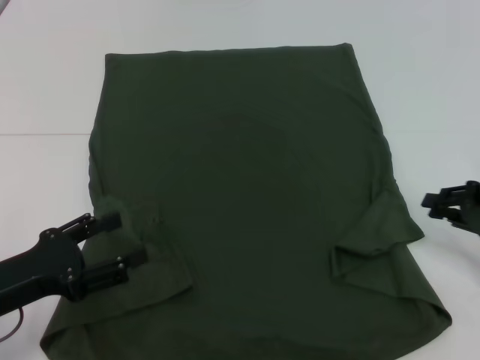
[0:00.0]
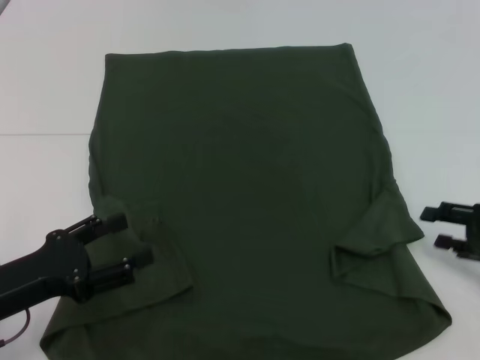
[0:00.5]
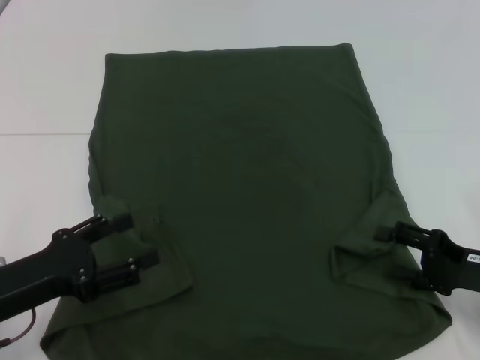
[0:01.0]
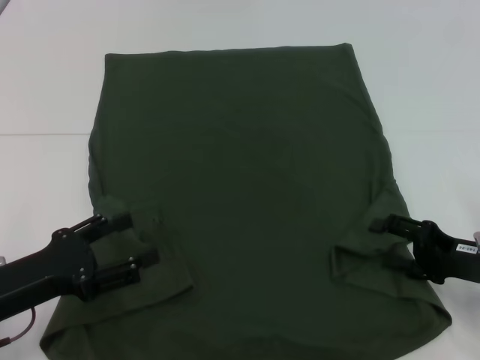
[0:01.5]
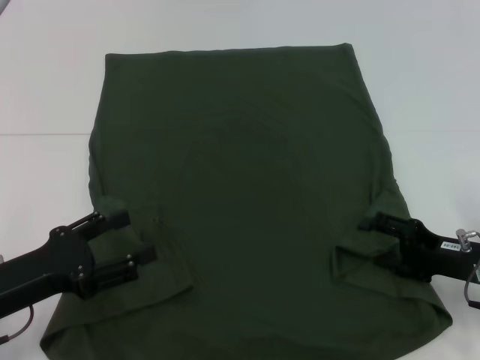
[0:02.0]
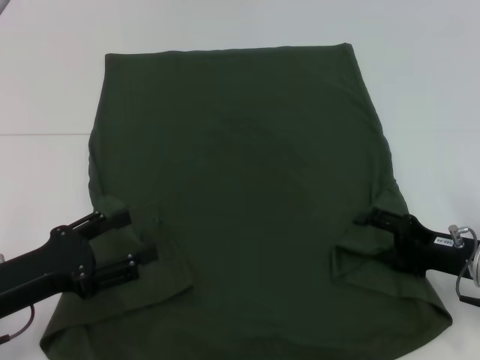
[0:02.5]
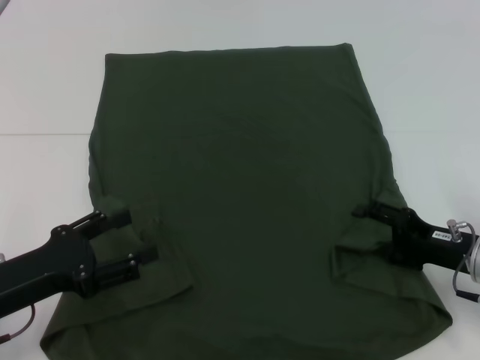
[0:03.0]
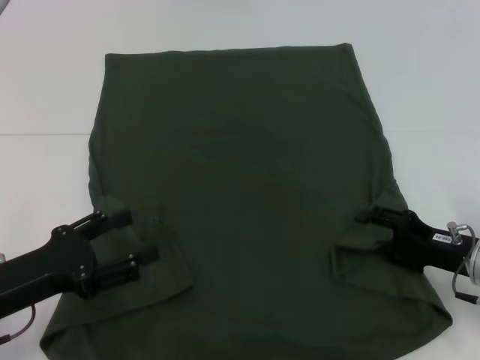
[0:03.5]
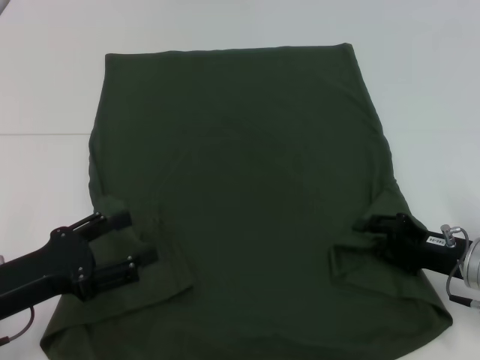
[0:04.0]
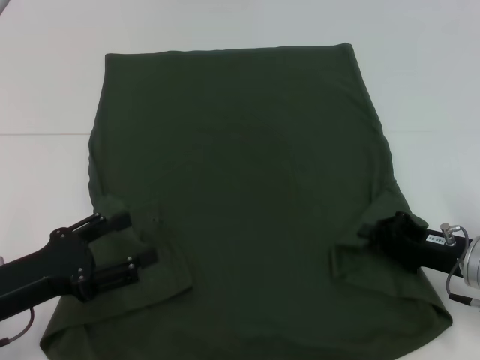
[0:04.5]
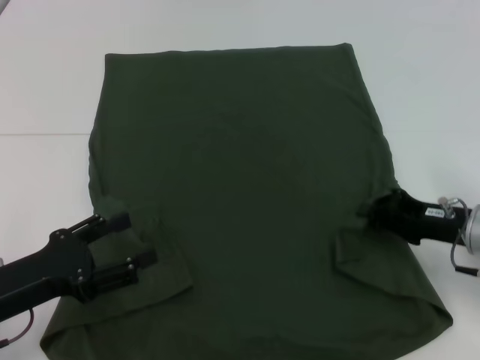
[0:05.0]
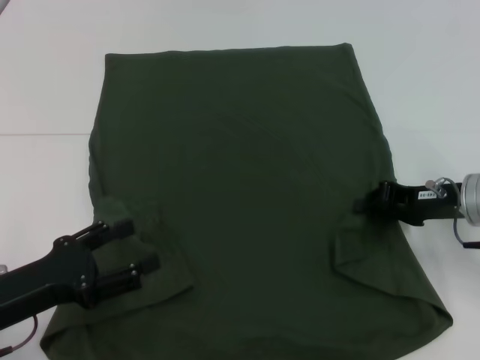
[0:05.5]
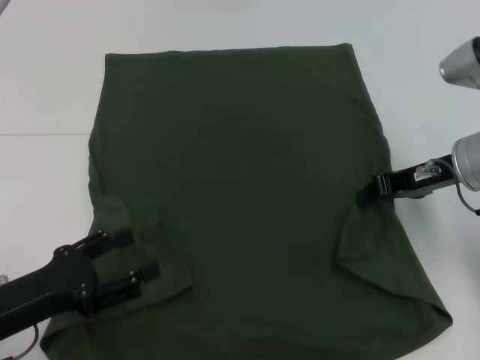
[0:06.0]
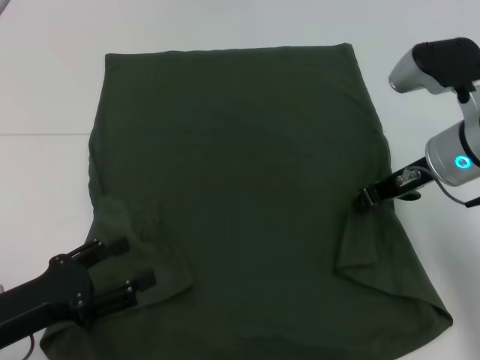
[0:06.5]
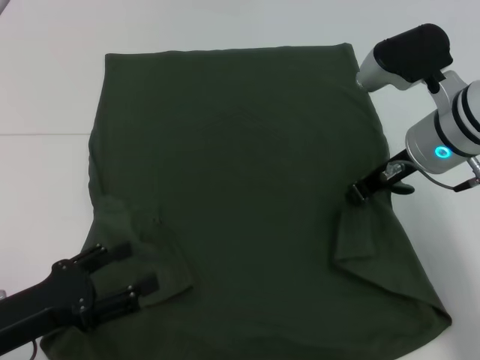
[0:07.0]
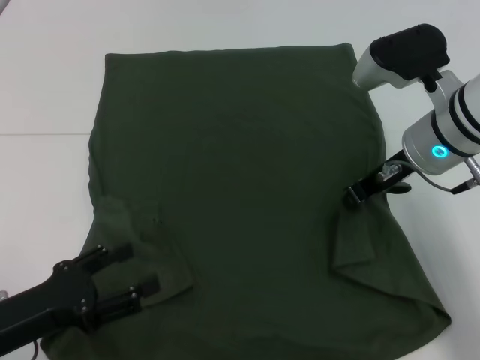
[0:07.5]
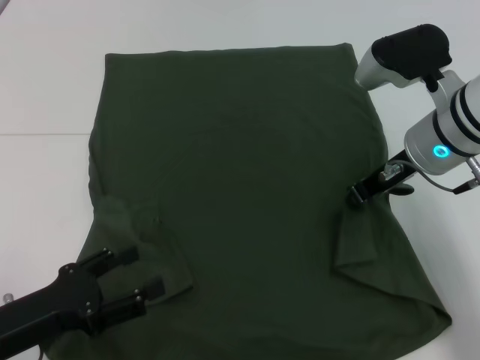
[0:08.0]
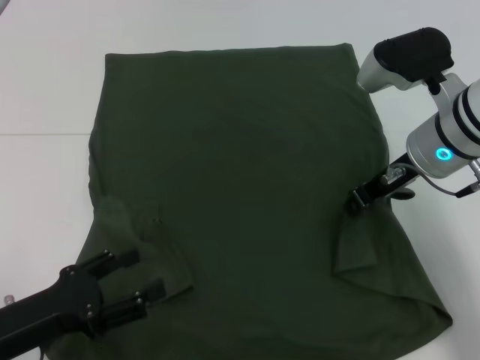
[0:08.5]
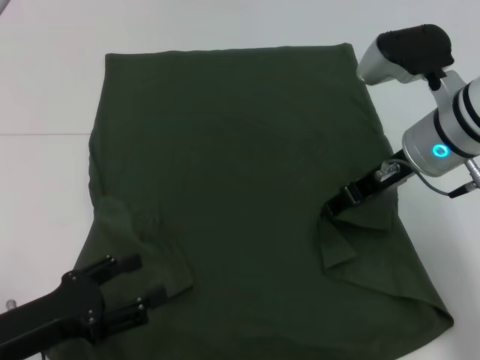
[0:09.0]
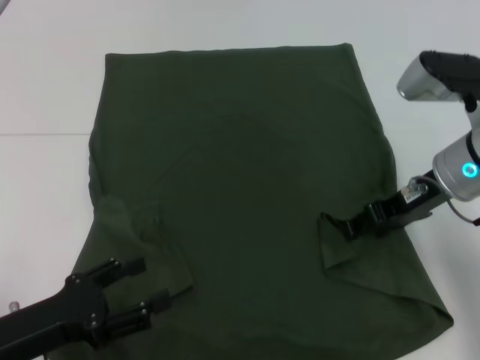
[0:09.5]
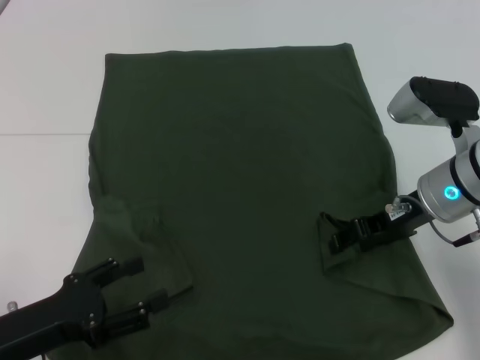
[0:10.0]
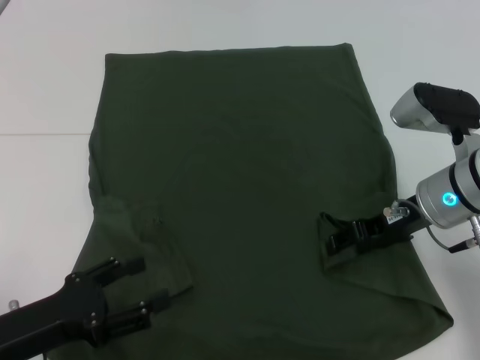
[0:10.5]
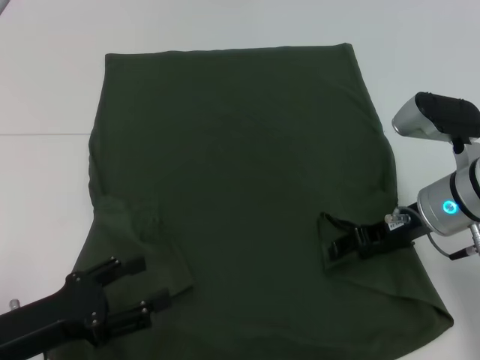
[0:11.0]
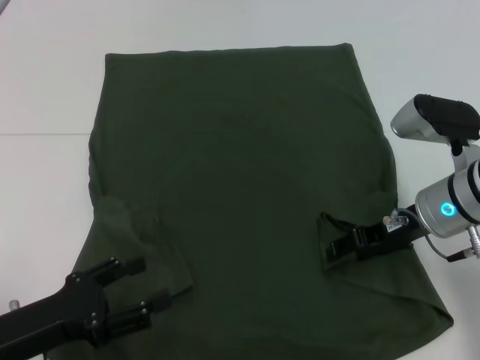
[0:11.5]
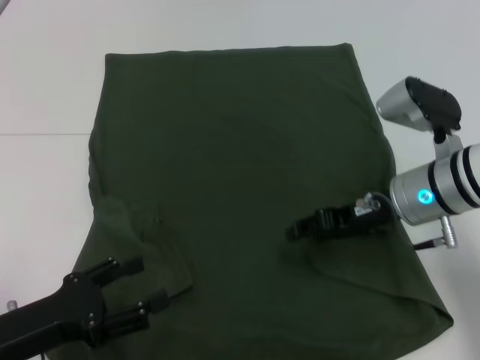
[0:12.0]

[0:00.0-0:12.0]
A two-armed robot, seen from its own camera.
Step, 0:00.0 to 0:12.0: Fold the bottom right sleeve with your right hand.
0:00.0 to 0:02.0: The right gripper heads to the left, covering about 5 cm, and opens its fingers.
0:02.0 to 0:04.0: The grippers stay close to where they were, moving slightly.
0:04.0 to 0:06.0: The right gripper travels upward and forward by some 15 cm, and closes up.
0:06.0 to 0:08.0: The right gripper shifts about 5 cm to the left.
0:08.0 to 0:10.0: The right gripper moves roughly 5 cm, and opens its fingers.
0:10.0 to 0:12.0: There are only small adjustments of the grippers.

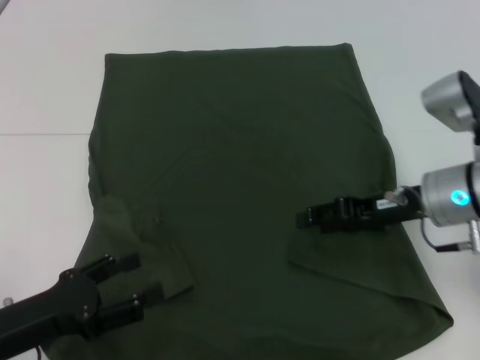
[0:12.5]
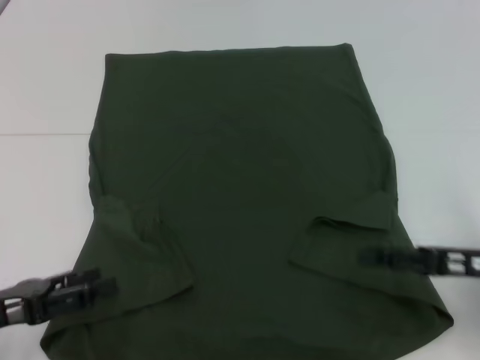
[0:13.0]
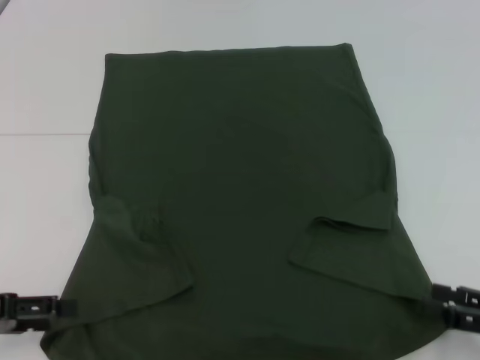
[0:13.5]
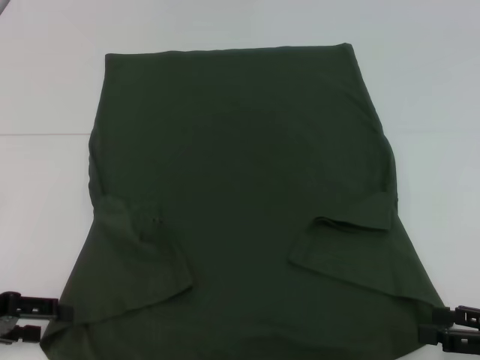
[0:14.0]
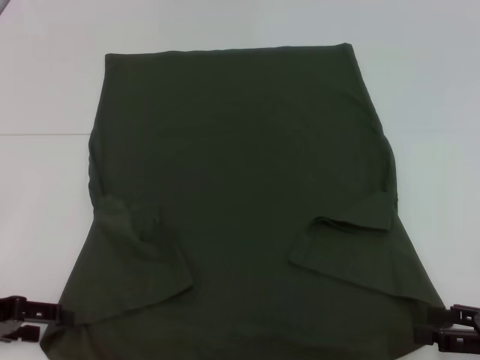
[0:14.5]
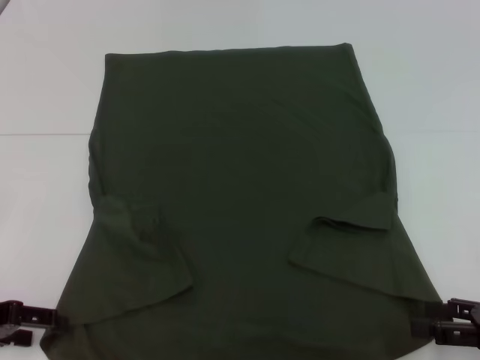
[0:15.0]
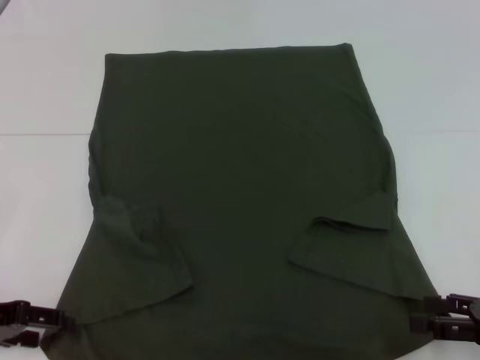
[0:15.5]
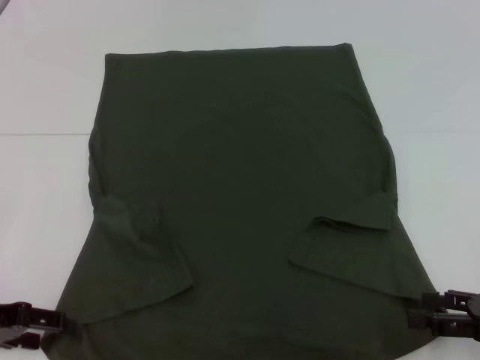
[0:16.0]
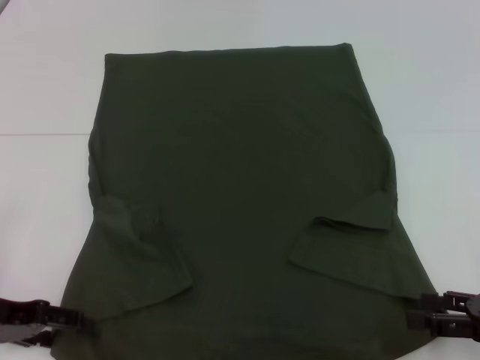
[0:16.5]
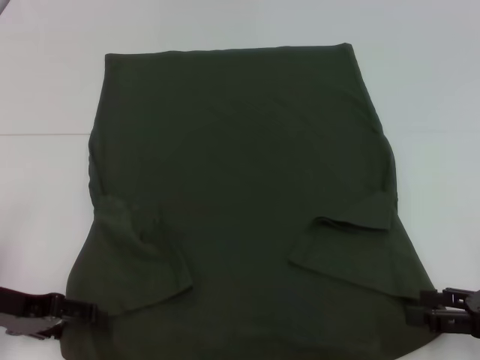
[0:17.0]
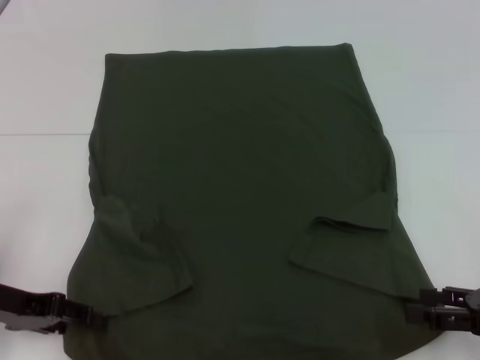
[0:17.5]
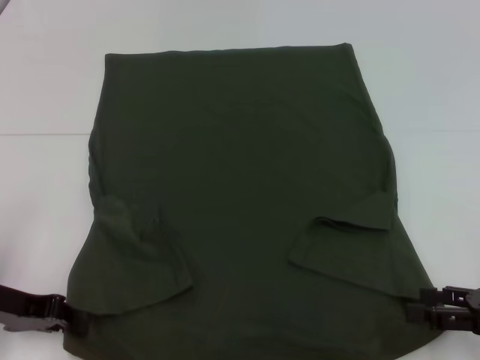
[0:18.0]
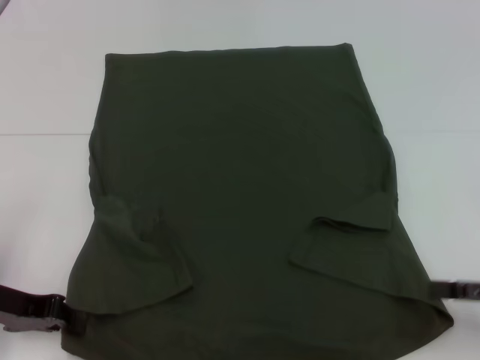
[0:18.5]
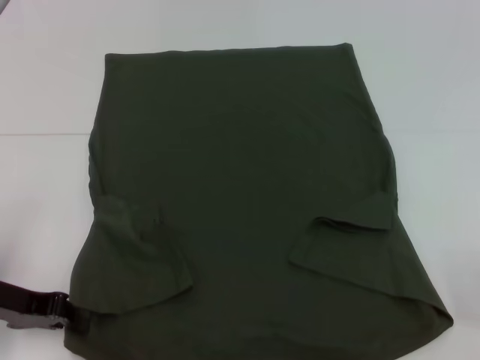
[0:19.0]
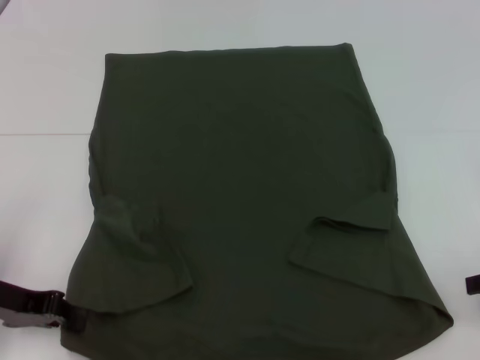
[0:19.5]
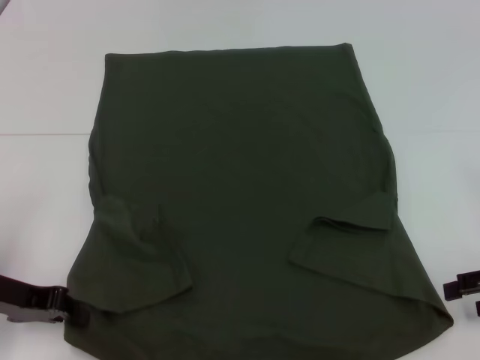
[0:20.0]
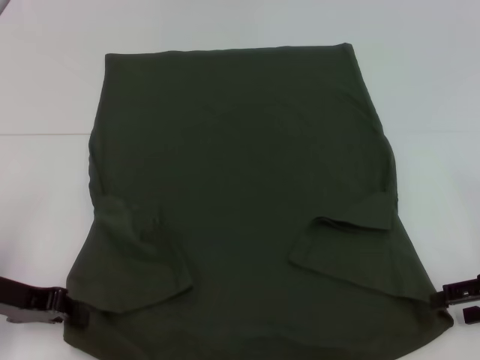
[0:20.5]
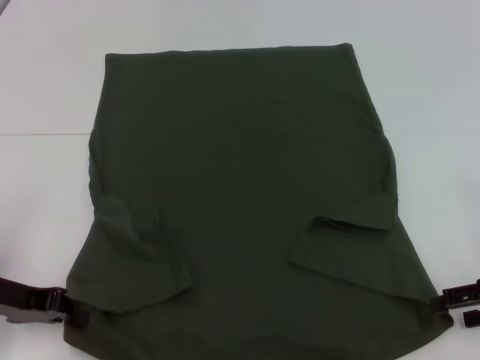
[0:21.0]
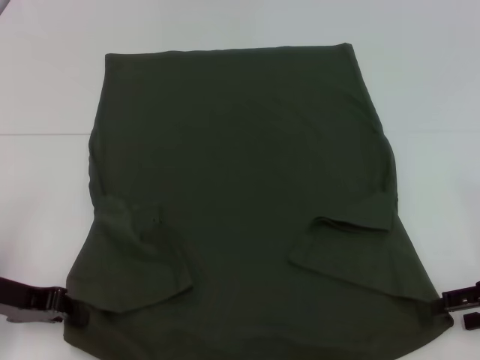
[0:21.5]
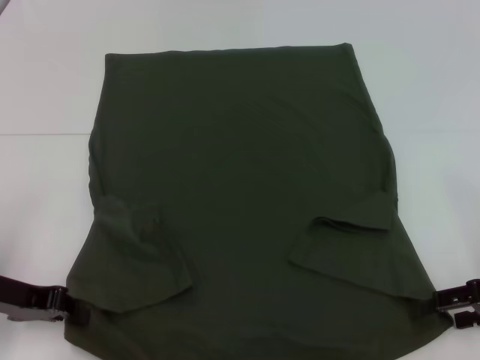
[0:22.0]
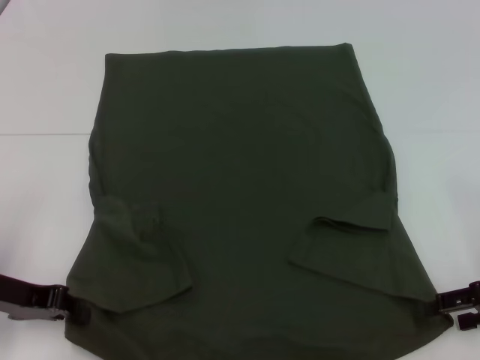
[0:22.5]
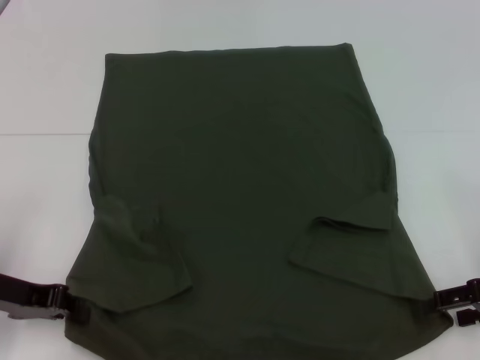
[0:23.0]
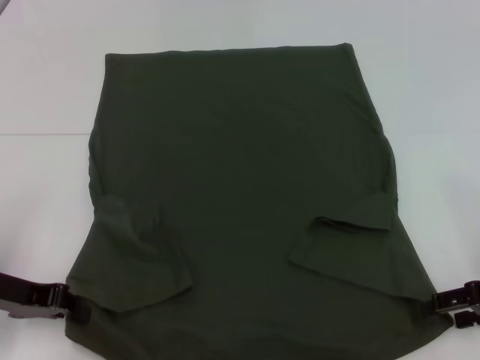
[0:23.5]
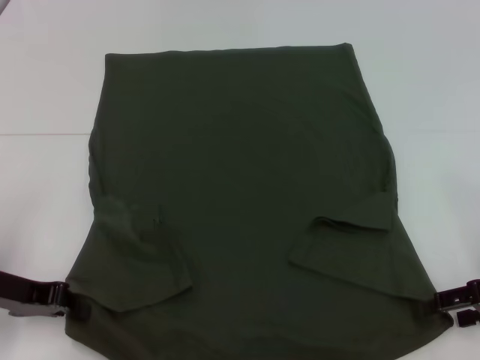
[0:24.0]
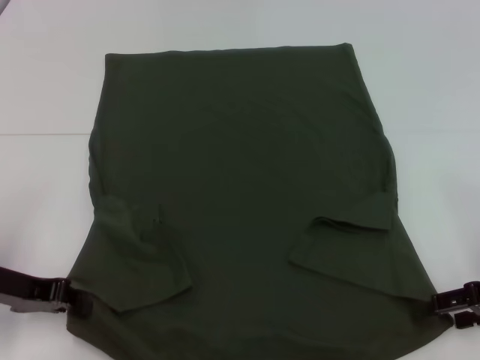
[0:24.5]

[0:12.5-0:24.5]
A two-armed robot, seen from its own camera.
Step, 0:12.5 to 0:18.0: Grab the bottom left corner with your left hand.
0:12.5 to 0:14.5: The left gripper moves to the left and forward, roughly 10 cm, while the right gripper travels backward, to the right and downward by some 20 cm.
0:14.5 to 0:16.5: The grippers stay close to where they were, moving slightly.
0:16.5 to 0:18.5: The left gripper closes its fingers.
0:20.5 to 0:22.5: Both grippers stay about where they are.
0:22.5 to 0:24.5: Neither gripper changes place.

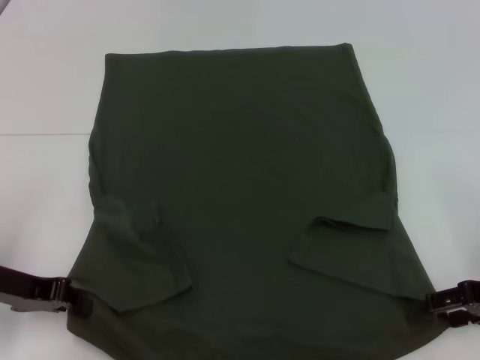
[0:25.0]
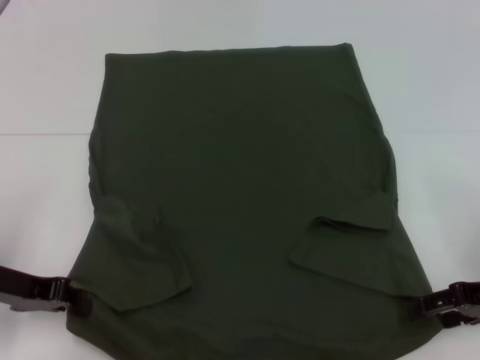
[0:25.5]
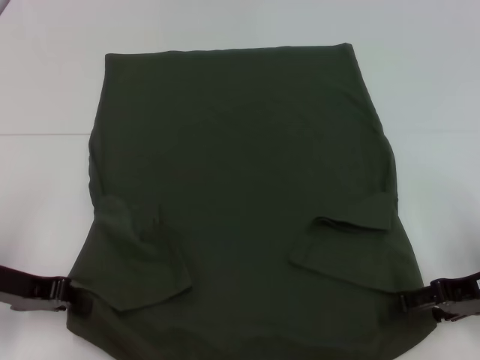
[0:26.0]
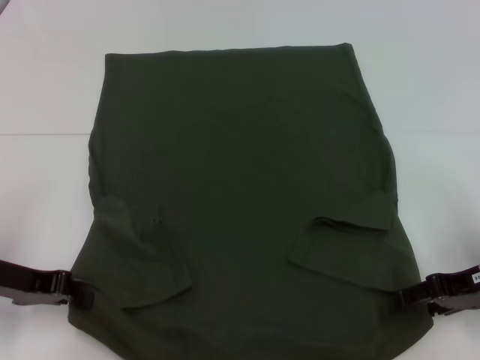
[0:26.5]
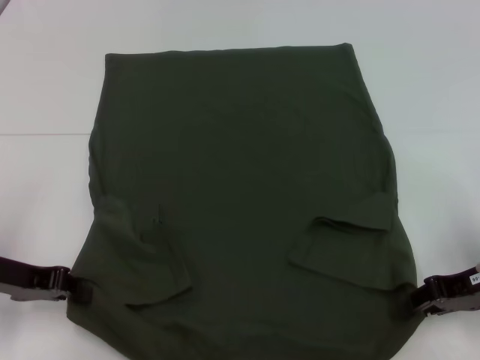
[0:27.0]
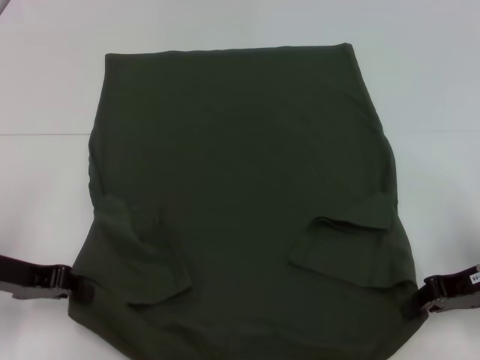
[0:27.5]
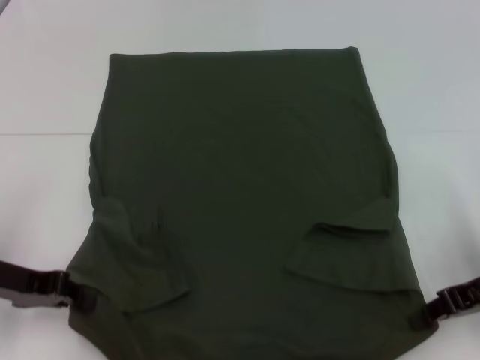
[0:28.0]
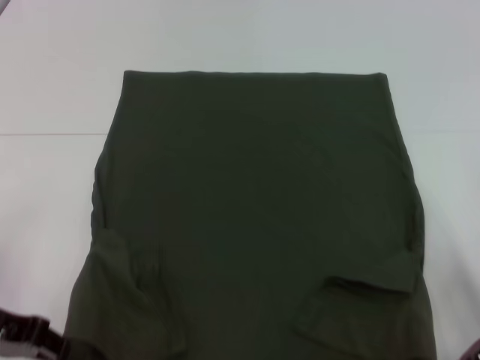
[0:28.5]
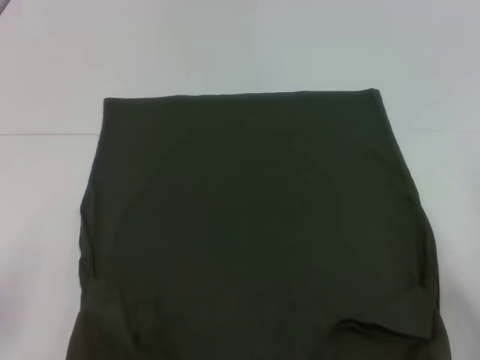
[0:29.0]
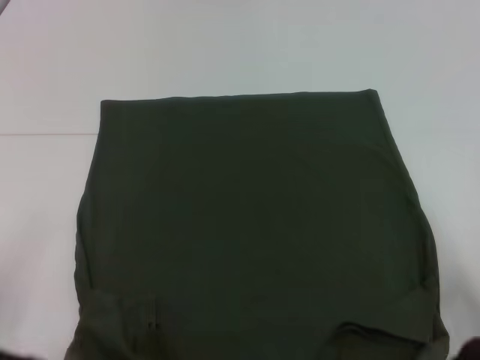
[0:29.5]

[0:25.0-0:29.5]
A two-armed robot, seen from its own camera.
Step, 0:25.0 to 0:28.0: Grab the bottom right corner with your right hand.
0:25.0 to 0:27.0: The right gripper closes.
0:27.0 to 0:29.5: The right gripper closes; the left gripper travels backward by roughly 5 cm.
